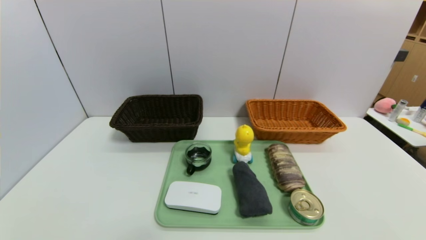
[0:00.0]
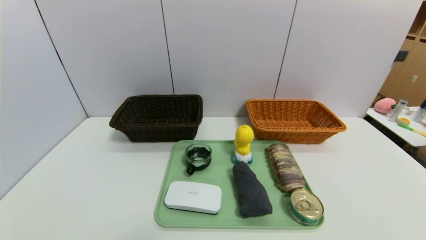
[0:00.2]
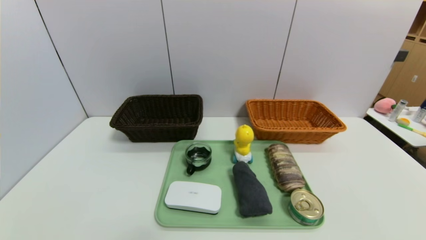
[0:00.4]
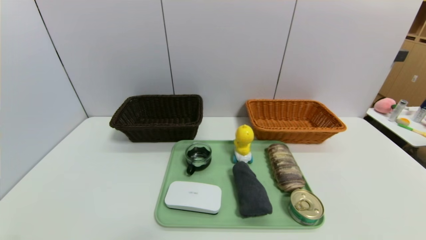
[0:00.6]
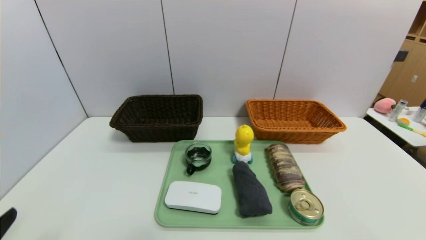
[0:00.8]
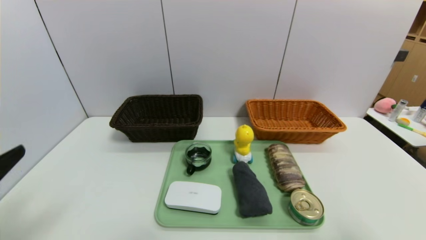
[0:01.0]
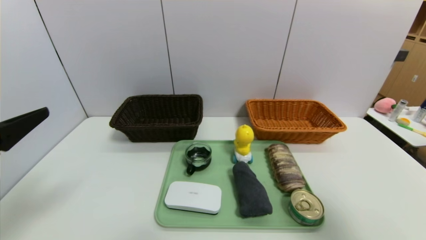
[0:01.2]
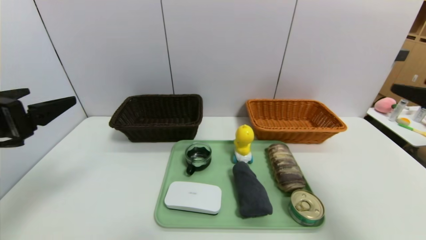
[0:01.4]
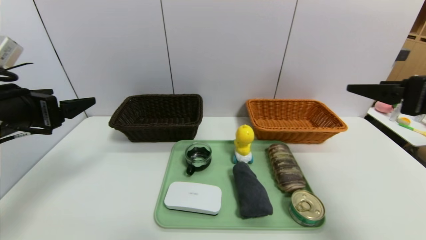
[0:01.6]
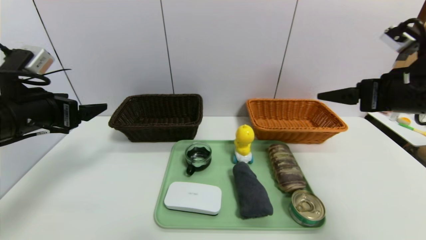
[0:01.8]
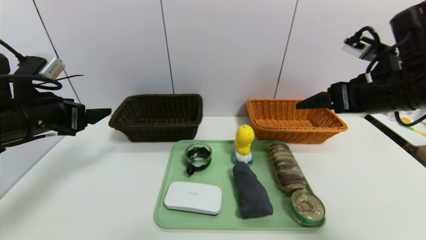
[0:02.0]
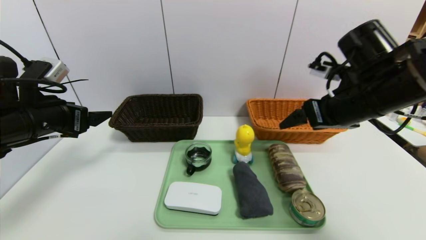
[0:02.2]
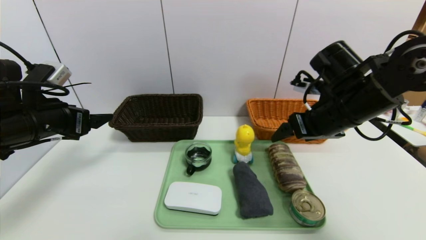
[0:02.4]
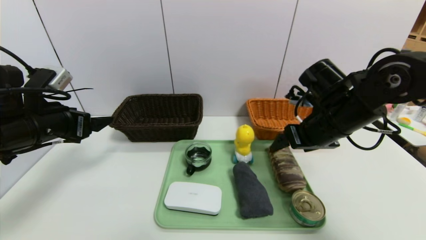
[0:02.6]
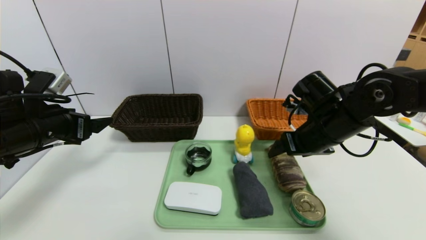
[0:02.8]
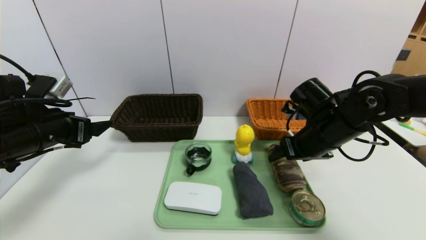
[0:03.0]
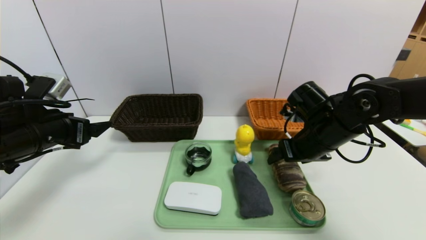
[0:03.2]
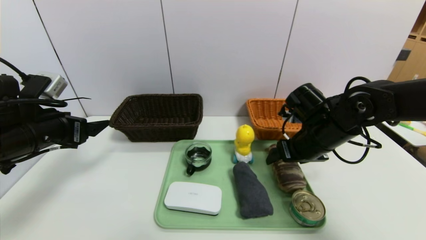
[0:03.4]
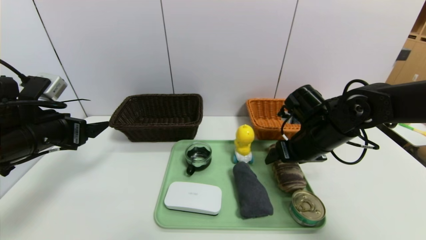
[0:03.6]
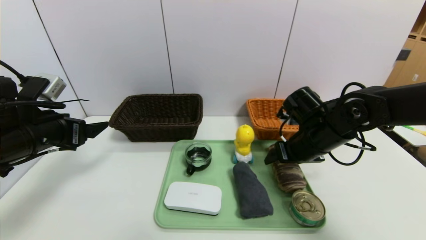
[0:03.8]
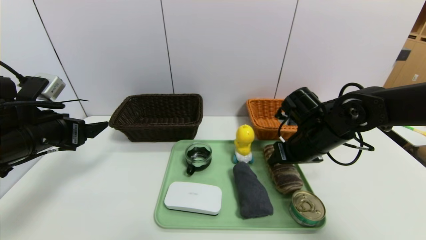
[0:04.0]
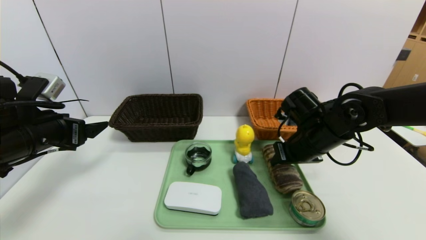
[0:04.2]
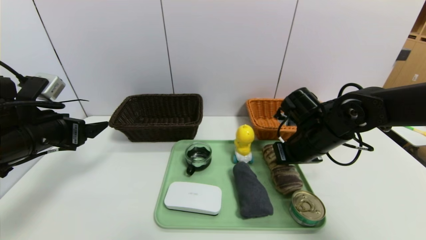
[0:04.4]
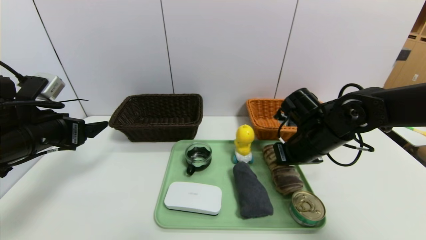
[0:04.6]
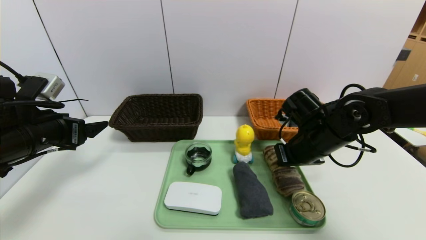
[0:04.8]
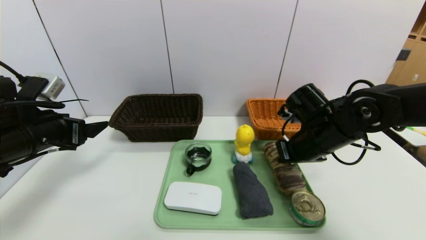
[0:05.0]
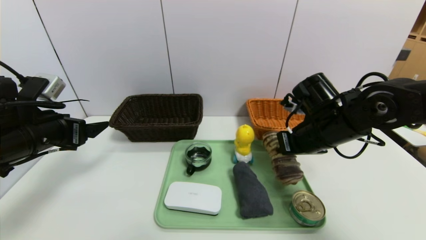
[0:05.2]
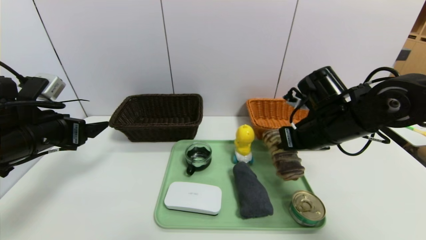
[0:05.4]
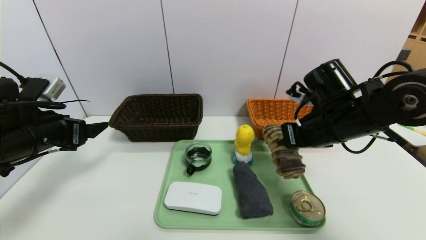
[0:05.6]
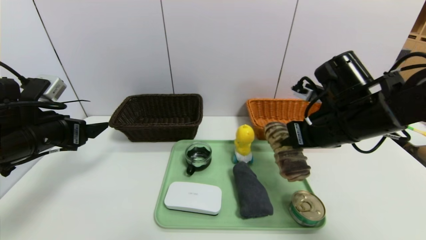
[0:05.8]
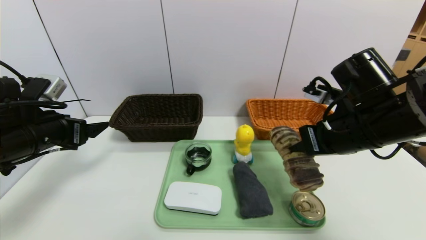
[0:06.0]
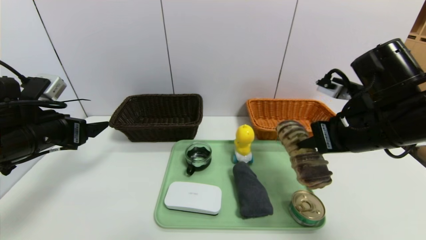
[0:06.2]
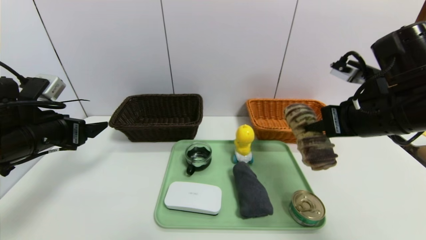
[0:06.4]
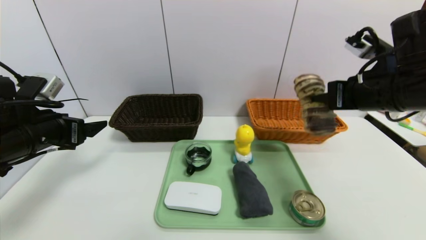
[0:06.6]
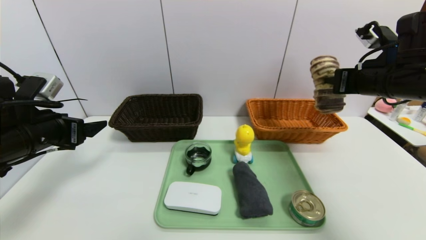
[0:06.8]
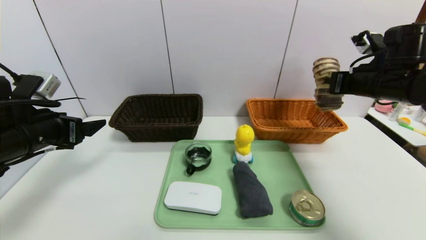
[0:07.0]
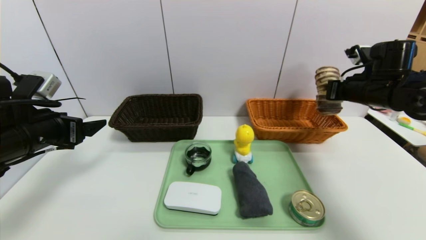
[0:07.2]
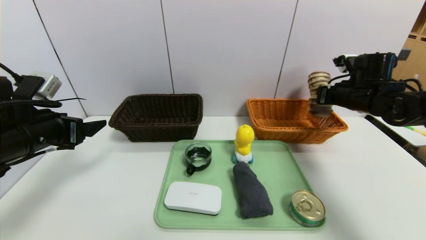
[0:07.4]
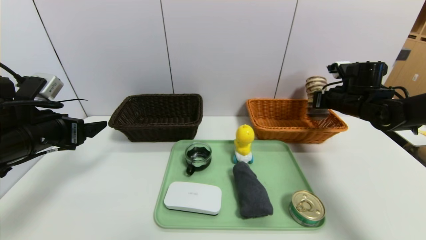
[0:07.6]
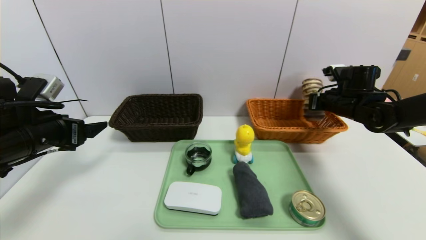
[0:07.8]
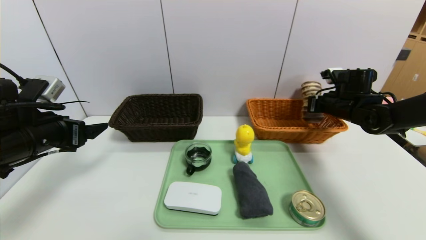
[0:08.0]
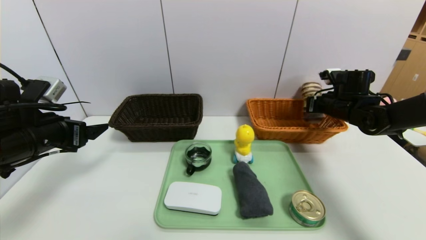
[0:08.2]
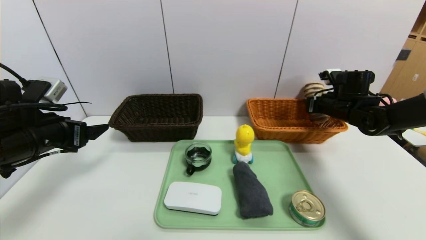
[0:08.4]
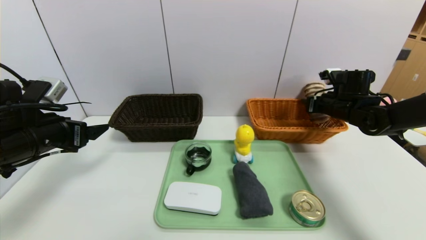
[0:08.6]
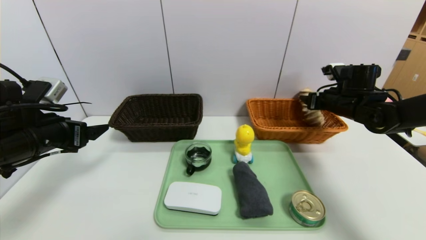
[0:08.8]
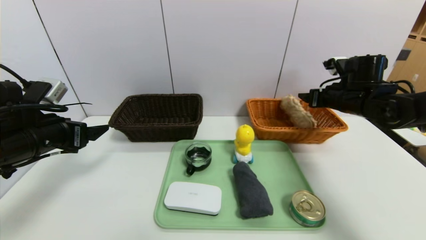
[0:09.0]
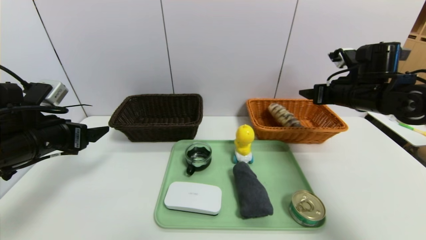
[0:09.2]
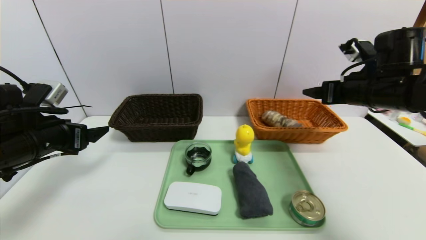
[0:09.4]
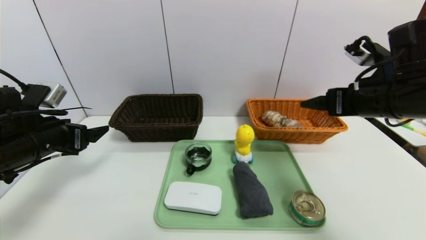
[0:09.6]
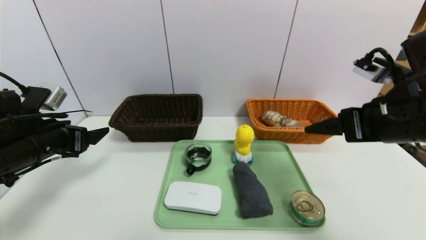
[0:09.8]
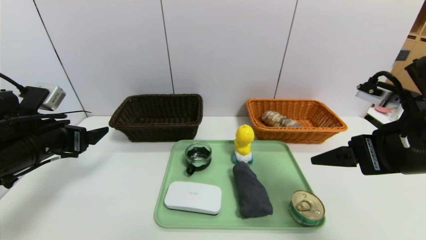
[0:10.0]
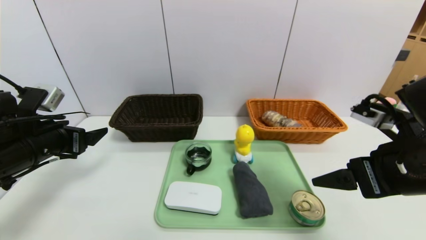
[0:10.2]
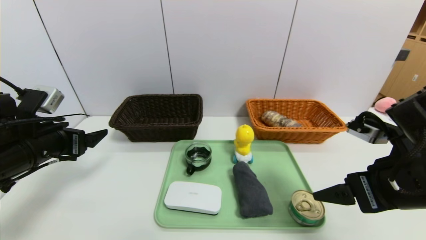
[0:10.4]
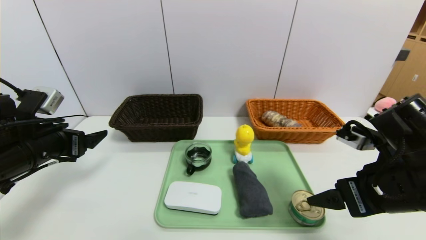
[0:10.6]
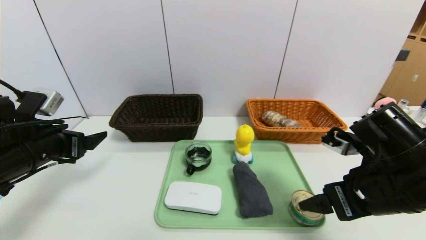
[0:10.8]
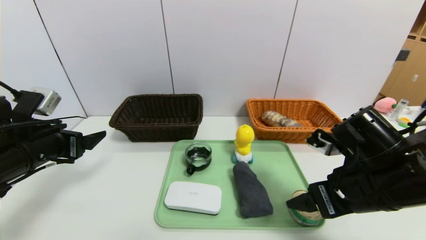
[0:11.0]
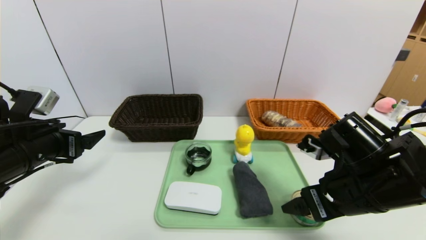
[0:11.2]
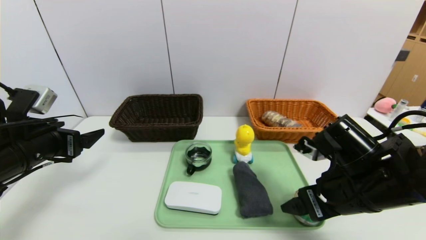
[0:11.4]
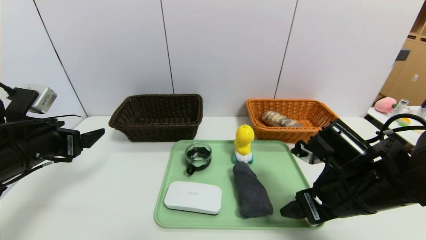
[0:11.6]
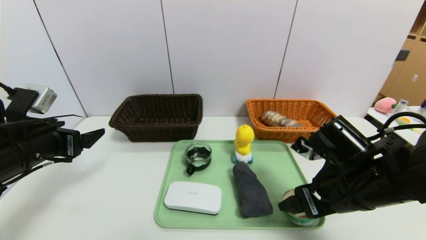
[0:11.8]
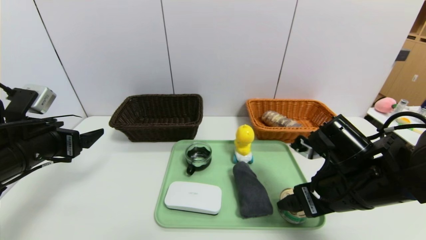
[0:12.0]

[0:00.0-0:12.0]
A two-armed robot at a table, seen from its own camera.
Task of the whole recording: place the food in the right basket with the right gripper, and place the non food items in the left basket with the left gripper.
Step, 0:00.0 to 0:08.8: Grasp the long bread and put it in the right basket.
0:00.0 to 0:01.6: The right gripper goes approximately 30 cm upward and forward. Meanwhile the left gripper moves forward and upward, approximately 30 cm.
0:01.6 to 0:03.0: The right gripper goes some 20 cm downward, forward and to the left. Meanwhile the left gripper shifts some 5 cm downward.
0:03.0 to 0:04.4: The right gripper closes.
0:04.4 to 0:06.0: The right gripper heads upward and backward, covering some 10 cm.
0:06.0 to 0:07.6: The right gripper travels forward and to the right by some 20 cm.
0:07.6 to 0:09.0: The right gripper opens up.
0:09.0 to 0:10.4: The right gripper shifts about 20 cm backward.
0:10.4 to 0:12.0: The right gripper shifts roughly 5 cm downward.

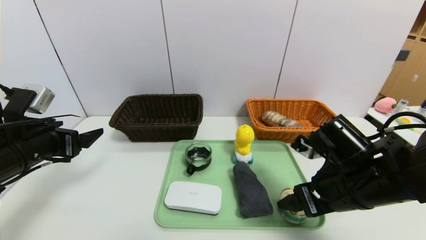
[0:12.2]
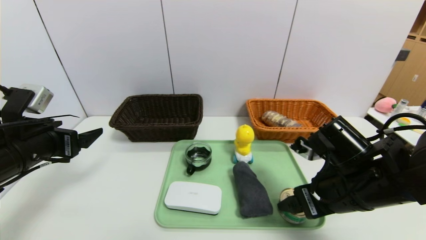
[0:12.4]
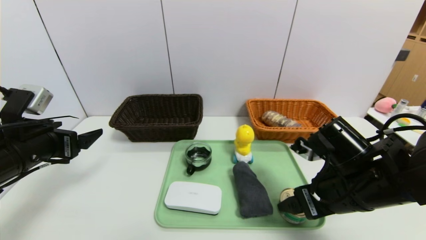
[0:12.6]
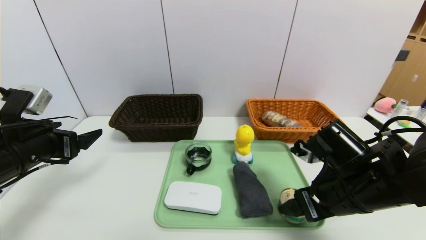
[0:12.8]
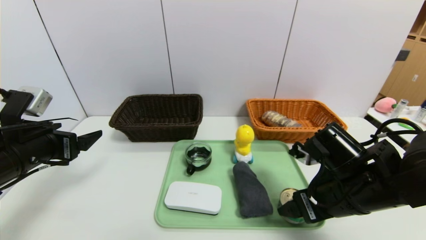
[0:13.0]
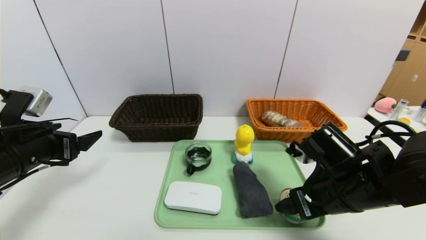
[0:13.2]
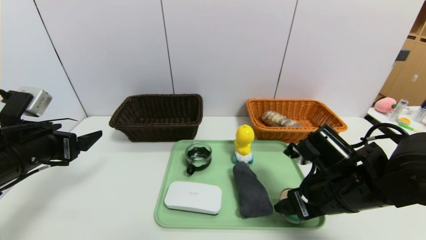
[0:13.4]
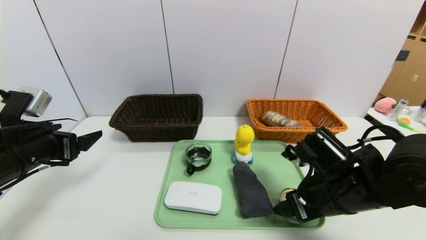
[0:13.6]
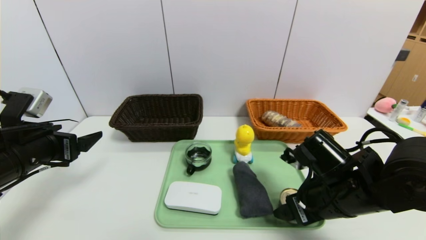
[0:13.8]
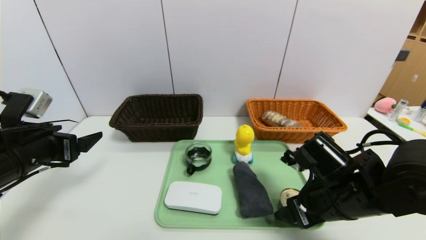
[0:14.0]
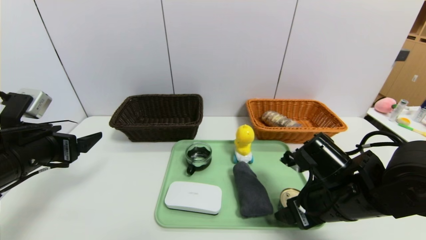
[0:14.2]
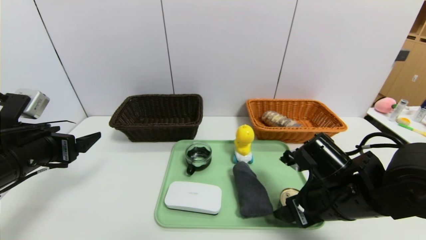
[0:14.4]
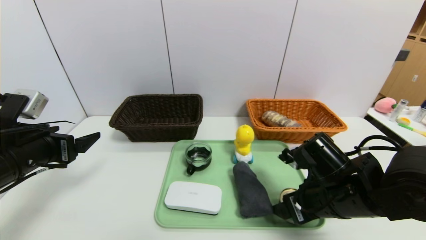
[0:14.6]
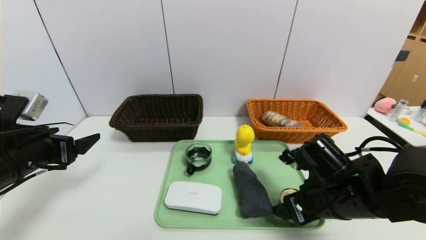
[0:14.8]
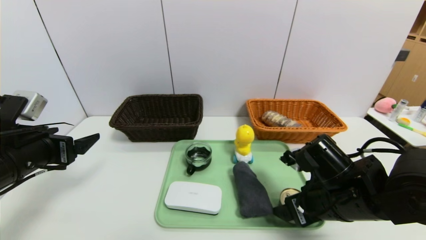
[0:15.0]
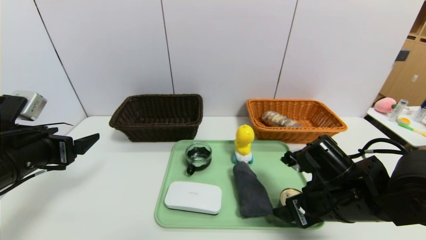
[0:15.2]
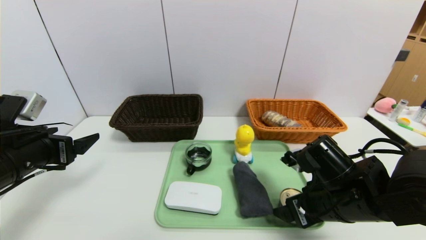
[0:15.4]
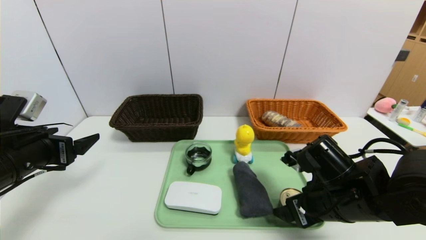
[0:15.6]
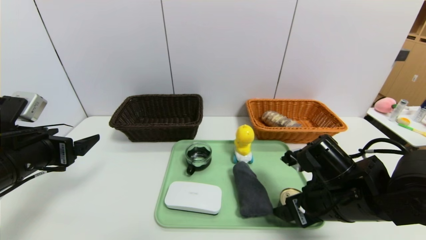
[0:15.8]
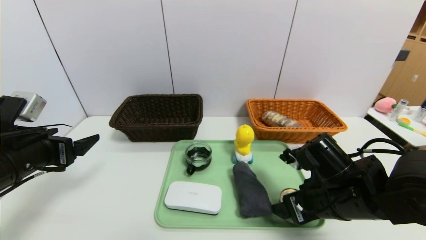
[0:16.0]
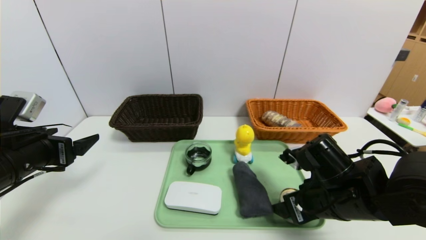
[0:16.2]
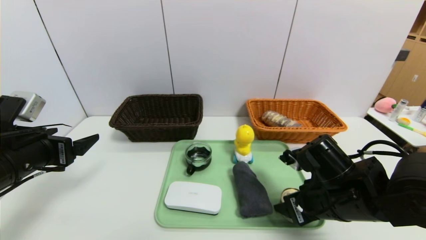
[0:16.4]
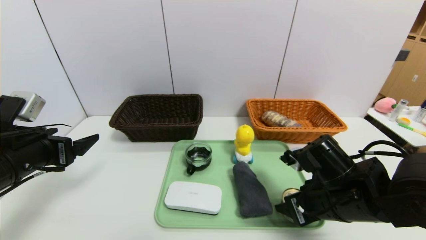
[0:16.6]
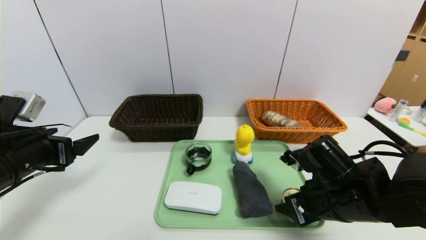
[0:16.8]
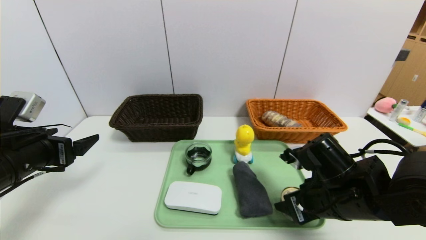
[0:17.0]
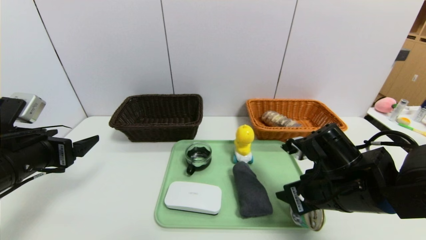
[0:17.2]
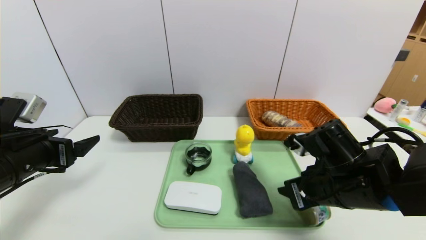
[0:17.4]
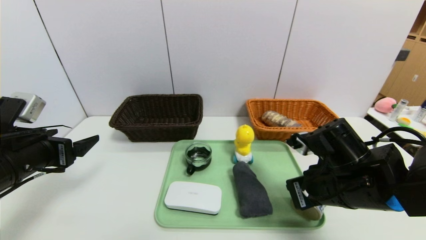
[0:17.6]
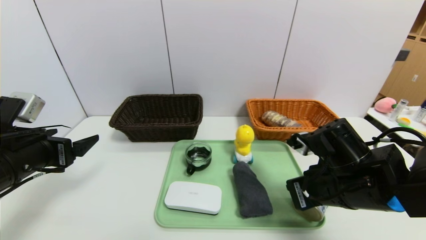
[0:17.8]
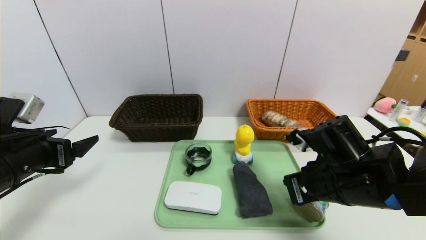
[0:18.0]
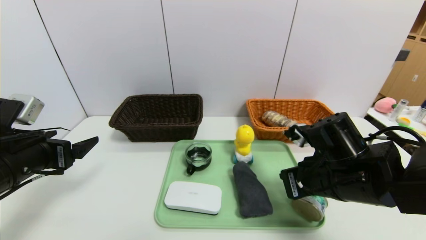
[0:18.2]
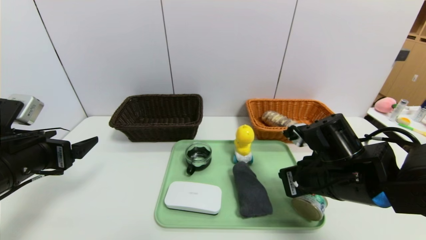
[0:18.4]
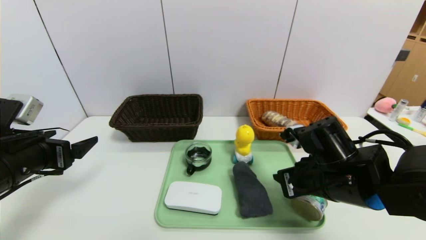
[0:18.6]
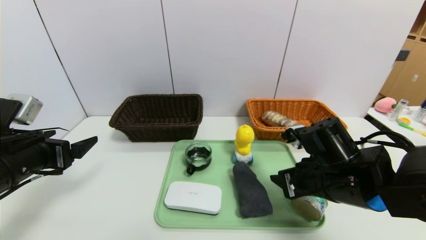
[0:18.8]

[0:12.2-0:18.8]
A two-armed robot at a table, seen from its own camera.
Task of the whole recording: place the food in the right basket with the right gripper, and place the non food items in the left basket with the left gripper.
0:12.2 to 0:15.4: The grippers stay close to where they were, moving slightly.
0:15.4 to 0:17.2: The right gripper closes up.
0:17.2 to 0:18.8: The right gripper closes and opens again.
